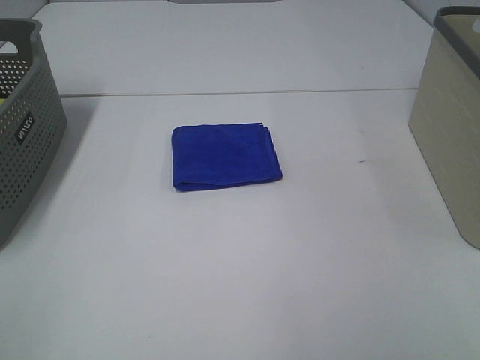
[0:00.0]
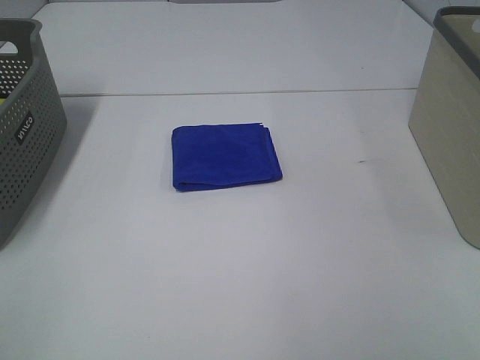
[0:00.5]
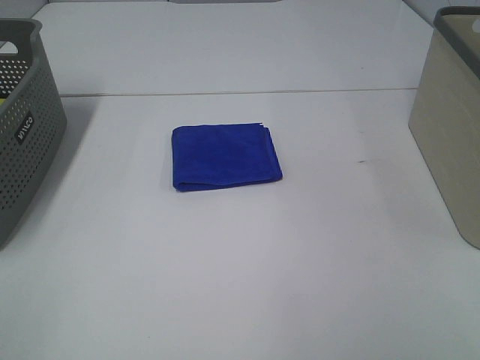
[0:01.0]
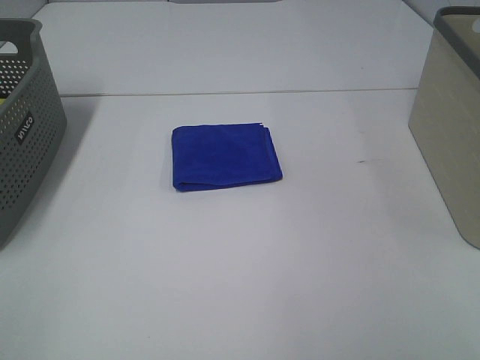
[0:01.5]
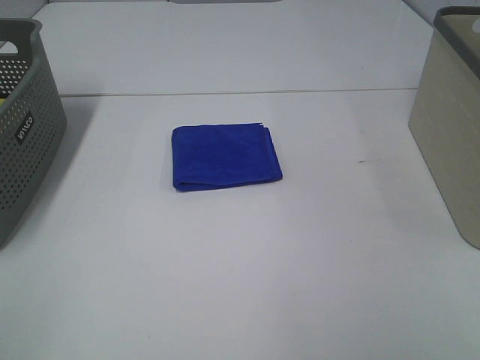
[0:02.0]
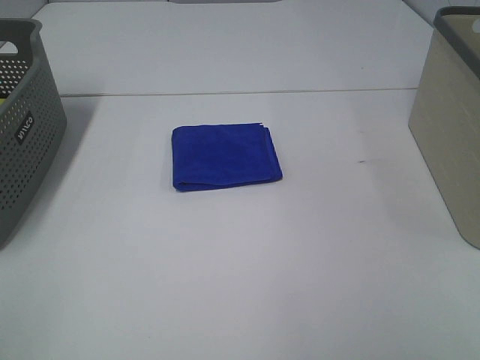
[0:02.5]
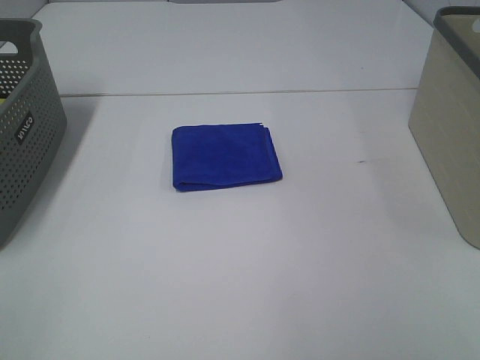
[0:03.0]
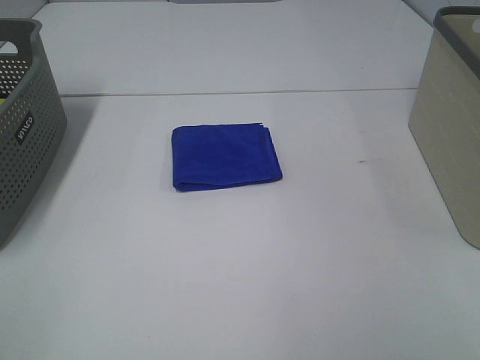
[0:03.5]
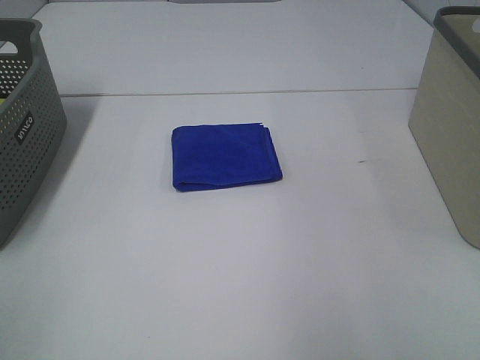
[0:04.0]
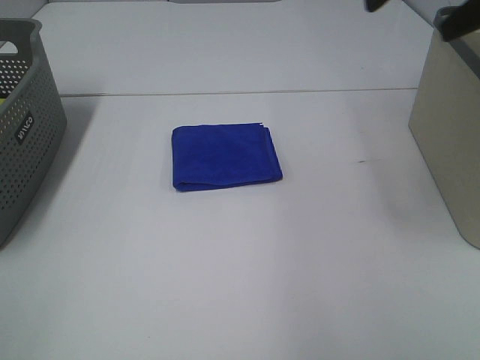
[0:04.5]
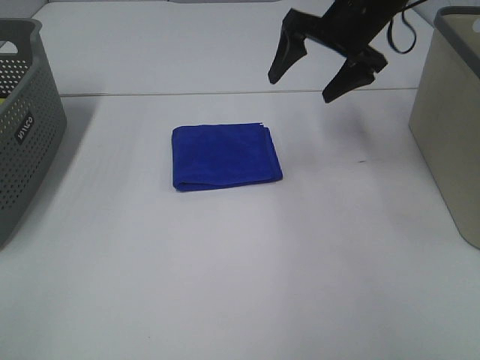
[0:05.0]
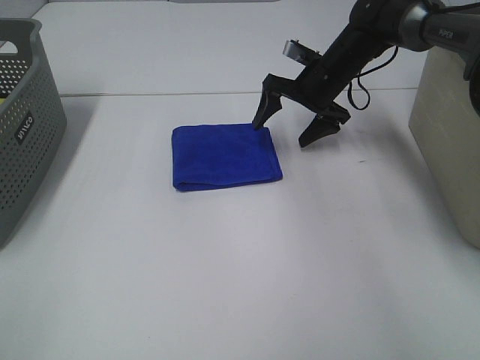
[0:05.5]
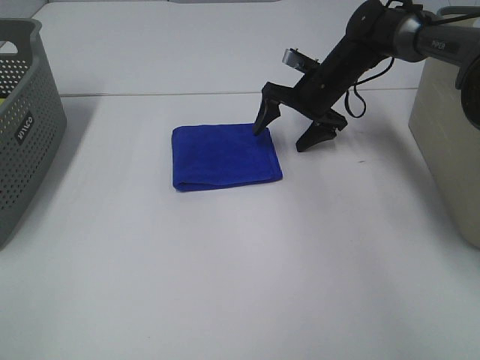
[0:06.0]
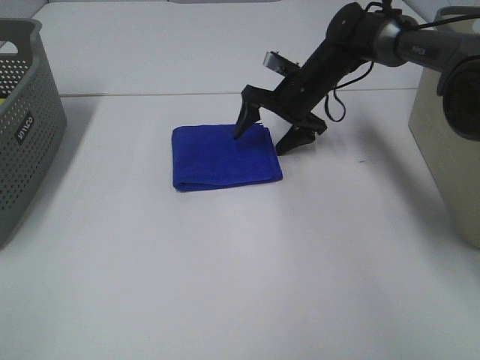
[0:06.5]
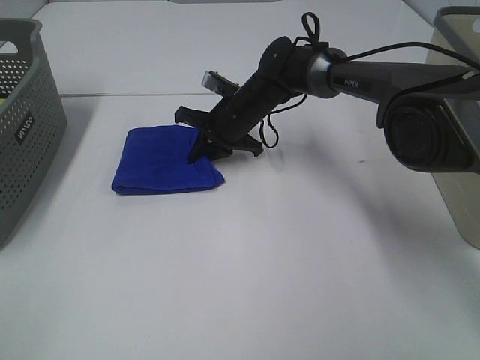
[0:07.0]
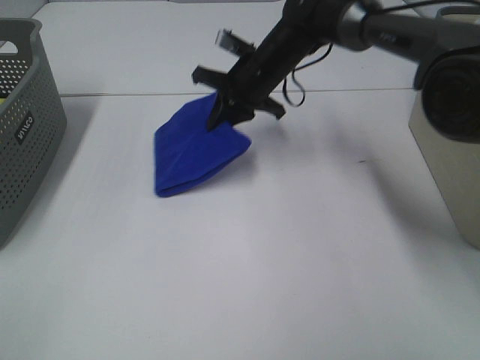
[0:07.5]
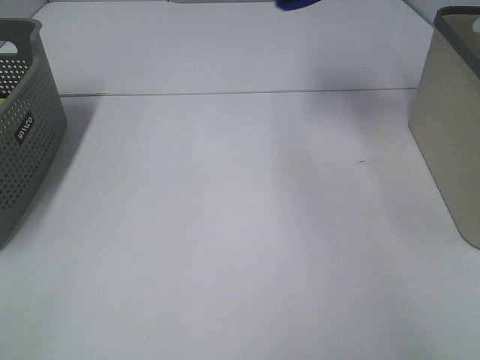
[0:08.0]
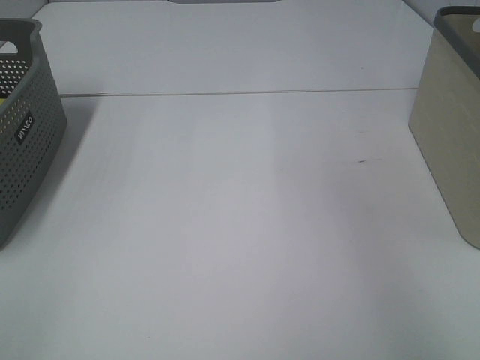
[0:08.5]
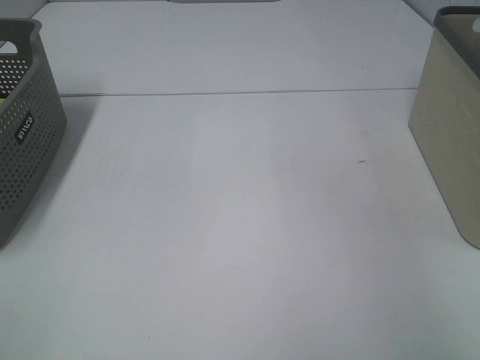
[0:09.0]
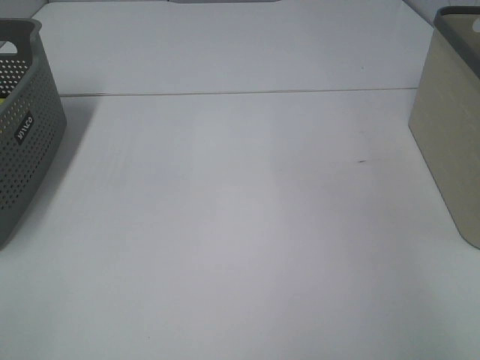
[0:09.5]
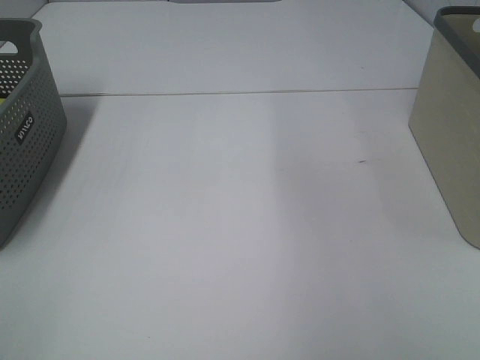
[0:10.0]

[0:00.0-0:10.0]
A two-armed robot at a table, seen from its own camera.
Step, 0:00.0 to 0:07.0: Right hand: grab the folded blue towel.
Step, 0:07.5 to 0:09.5: Right hand: place the blue towel in right basket.
0:00.0 to 0:02.0: Both grippers stay put.
0:04.0 to 0:06.0: The right gripper heads forward and downward, covering about 50 cm.
0:06.0 to 0:08.0: The right gripper goes some 30 cm upward, and closes its fingers.
0:08.0 to 0:10.0: The right gripper moves backward, approximately 10 cm, moves approximately 20 cm to the right and comes back, and opens.

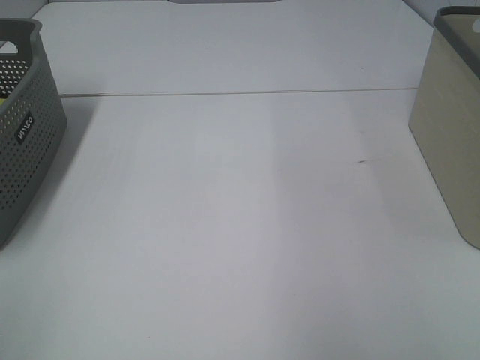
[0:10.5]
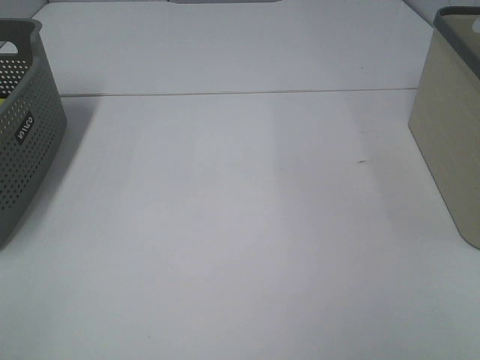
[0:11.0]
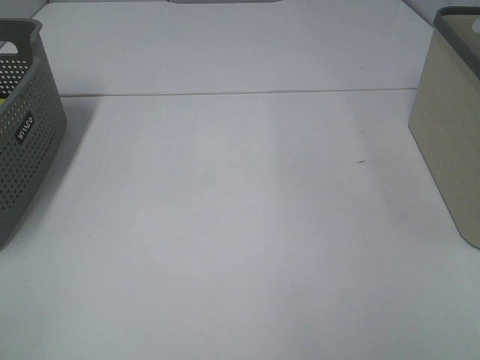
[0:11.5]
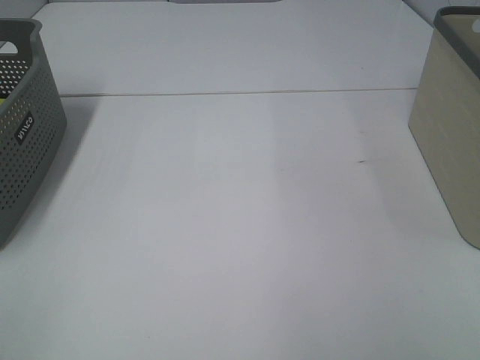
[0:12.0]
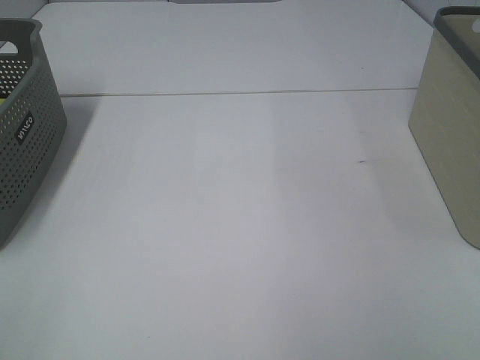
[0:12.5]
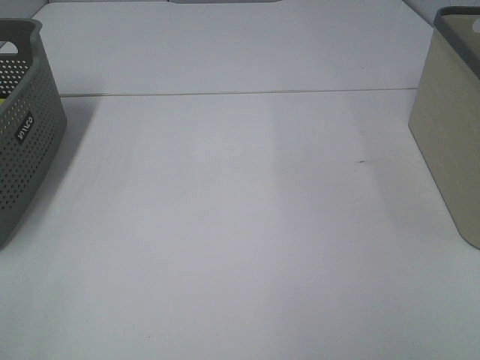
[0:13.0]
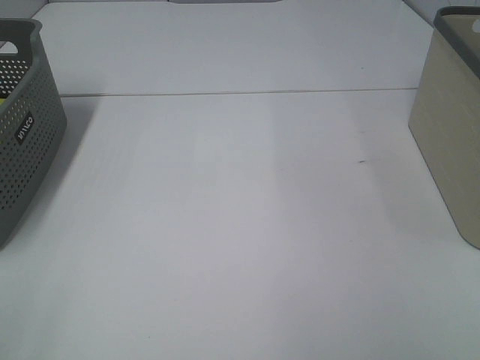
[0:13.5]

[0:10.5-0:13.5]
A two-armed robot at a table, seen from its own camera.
0:12.0 to 0:13.5: Both grippers stay put.

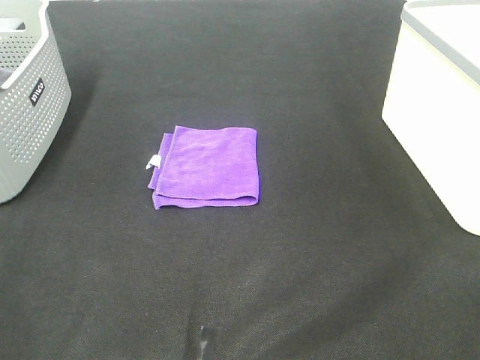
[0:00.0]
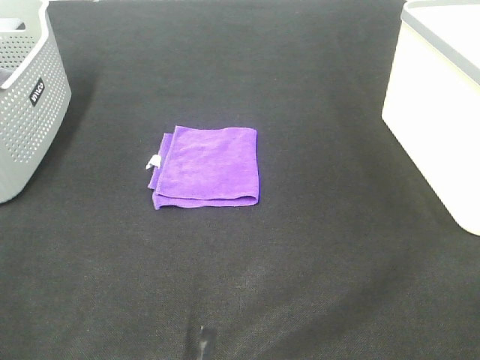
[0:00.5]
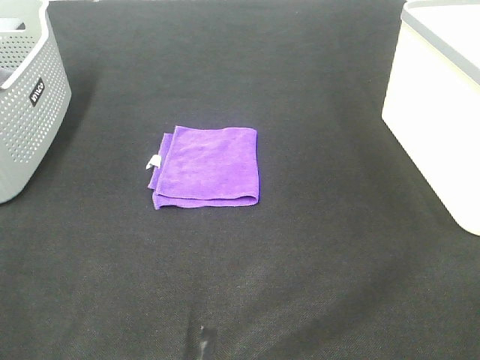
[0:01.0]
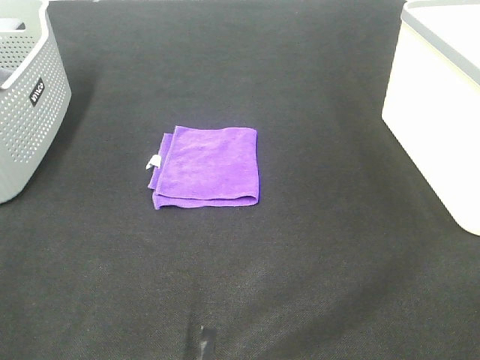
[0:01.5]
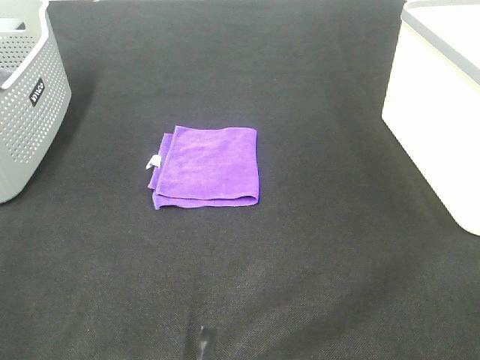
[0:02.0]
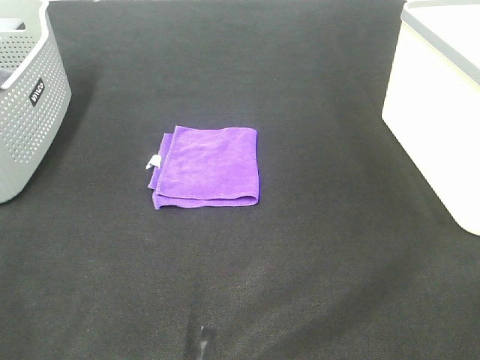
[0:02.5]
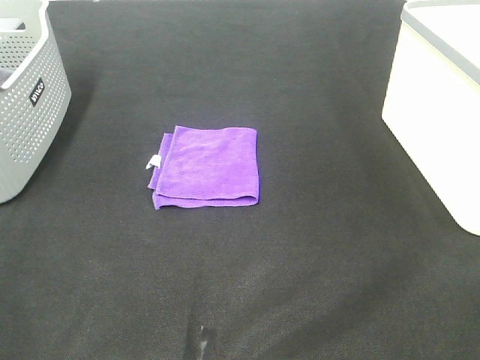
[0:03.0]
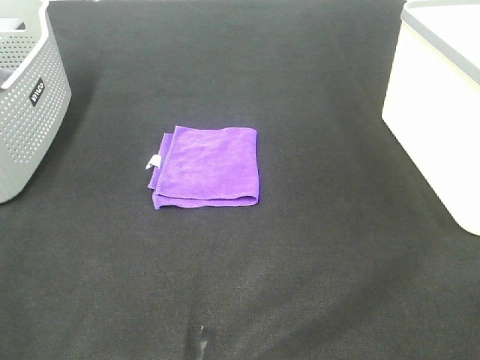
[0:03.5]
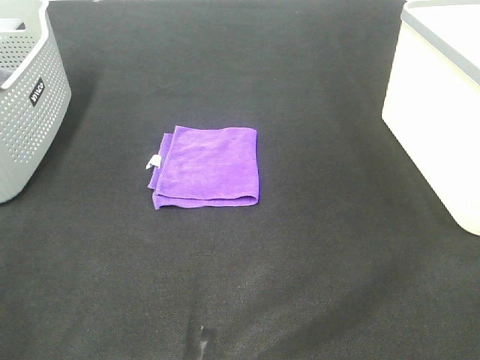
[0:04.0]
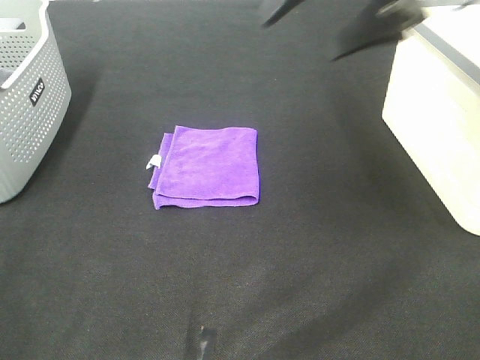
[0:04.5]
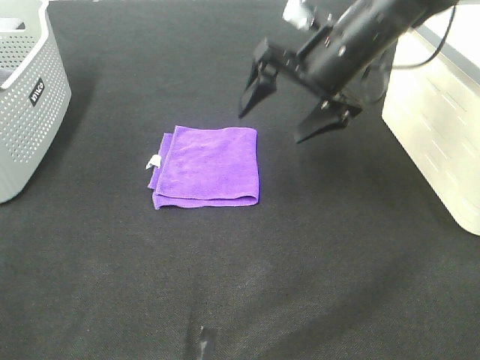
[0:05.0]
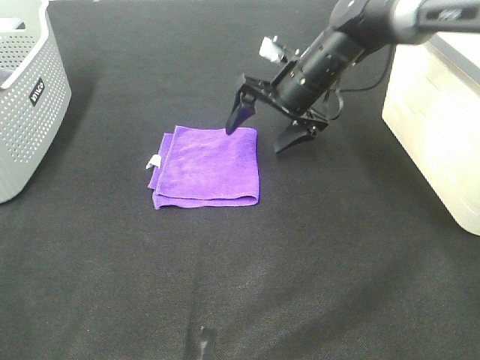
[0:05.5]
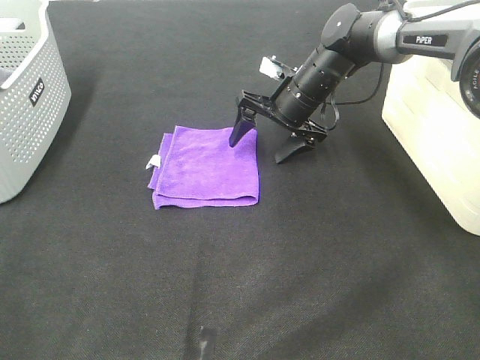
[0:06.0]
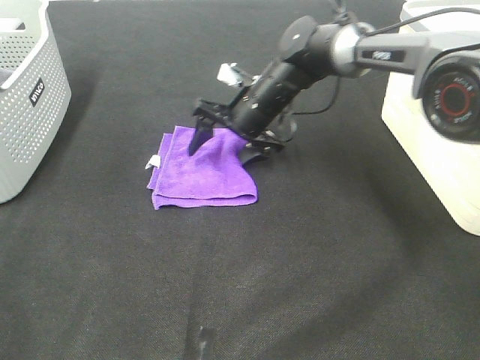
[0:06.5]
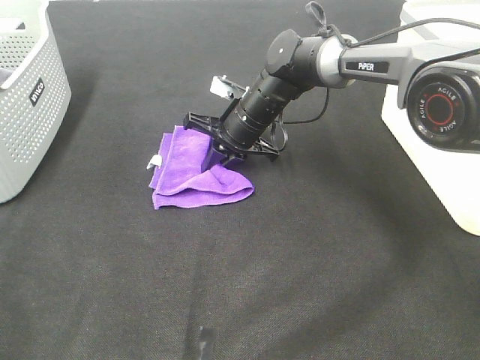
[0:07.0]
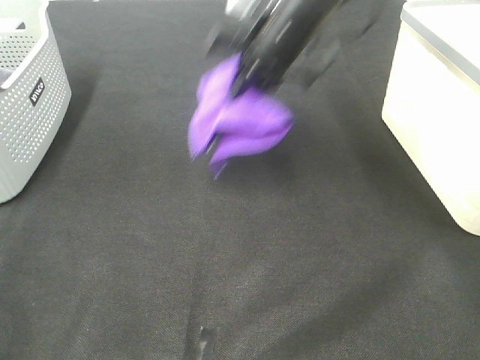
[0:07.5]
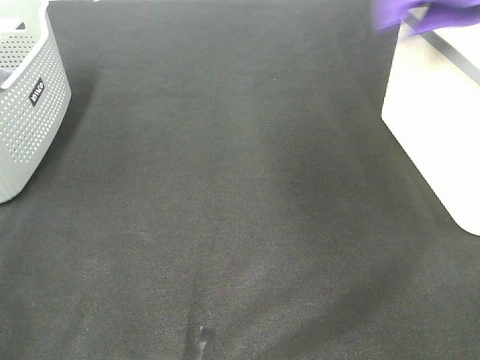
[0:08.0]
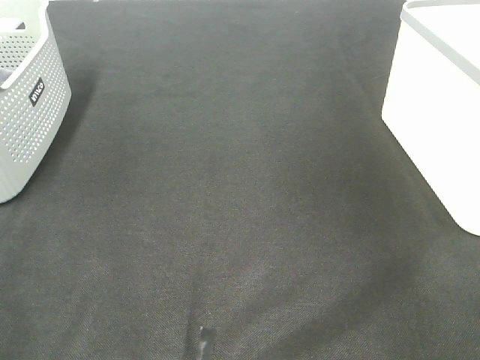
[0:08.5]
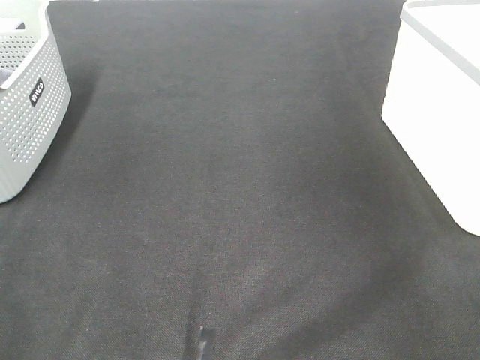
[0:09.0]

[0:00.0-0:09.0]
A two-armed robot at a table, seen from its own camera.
Step, 0:00.0 to 0:07.0: Right hand: grab the folded purple towel.
Step, 0:07.5 to 0:08.5: Right hand: place the purple towel in right basket.
0:00.0 to 0:02.0: Both grippers stay put.
0:02.0 to 0:04.5: The right gripper shifts approximately 35 cm forward and to the left.
0:04.5 to 0:07.0: The right gripper moves downward, to the left and forward, about 30 cm, and closes its fingers.
0:07.0 to 0:09.0: The right gripper travels to the right and upward by roughly 50 cm, and opens its fingers.

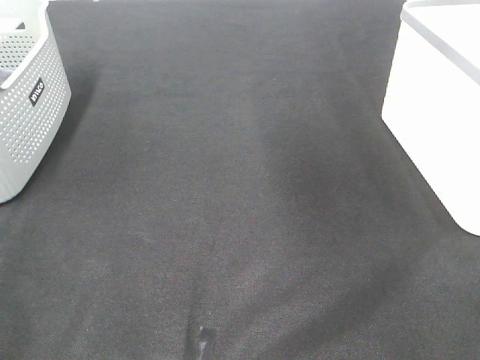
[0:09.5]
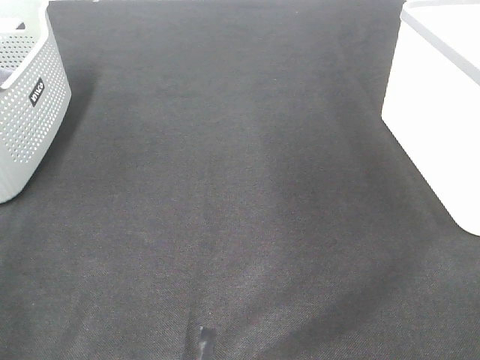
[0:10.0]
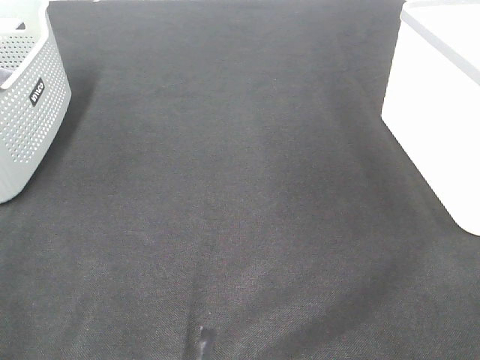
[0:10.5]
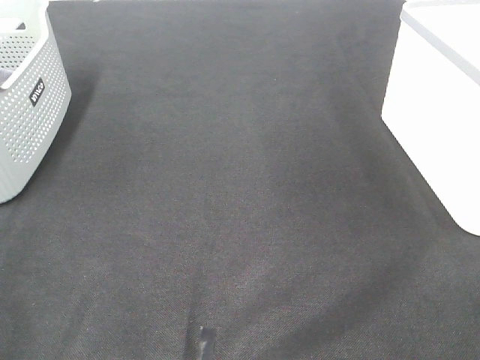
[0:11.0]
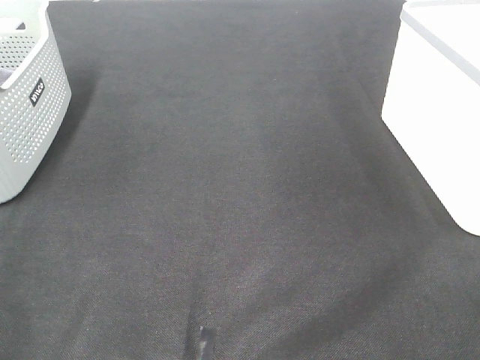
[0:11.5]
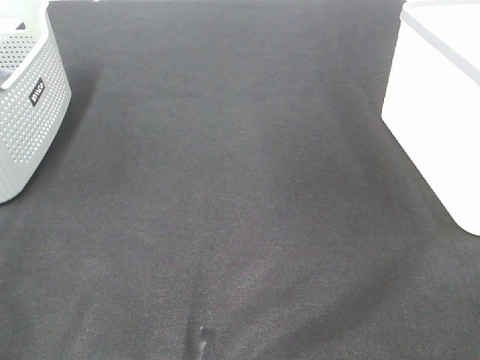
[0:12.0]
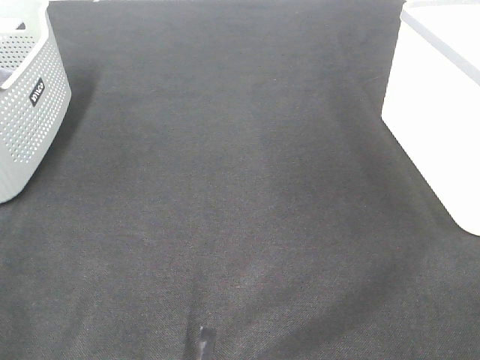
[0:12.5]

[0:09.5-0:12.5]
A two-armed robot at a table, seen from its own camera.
0:11.0 to 0:12.5: Neither gripper changes place.
